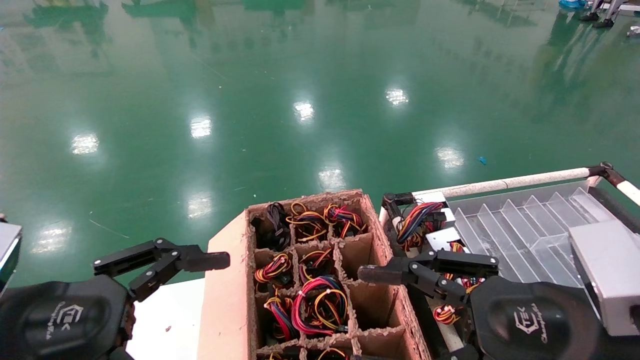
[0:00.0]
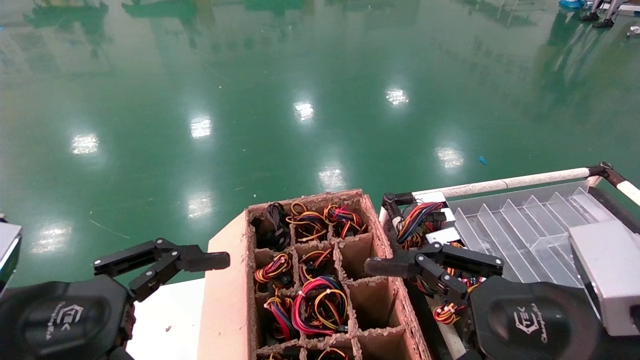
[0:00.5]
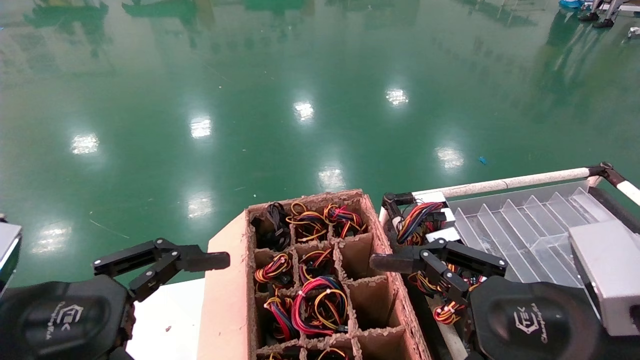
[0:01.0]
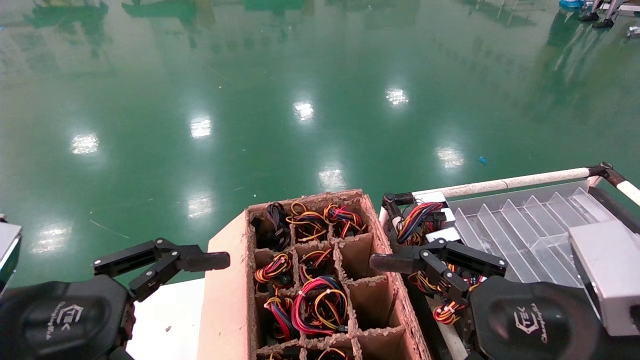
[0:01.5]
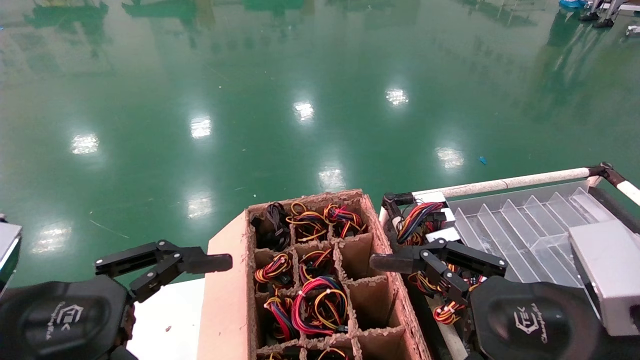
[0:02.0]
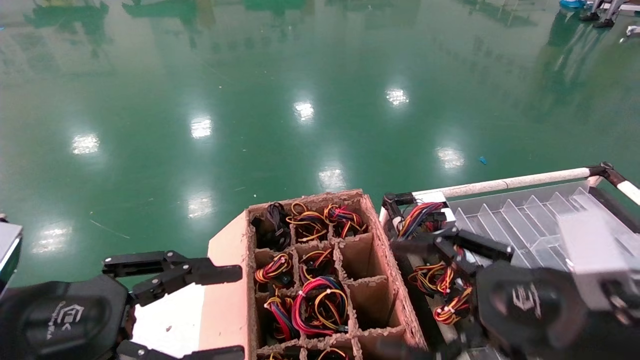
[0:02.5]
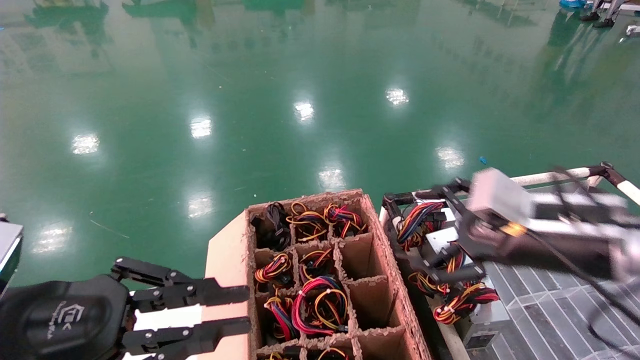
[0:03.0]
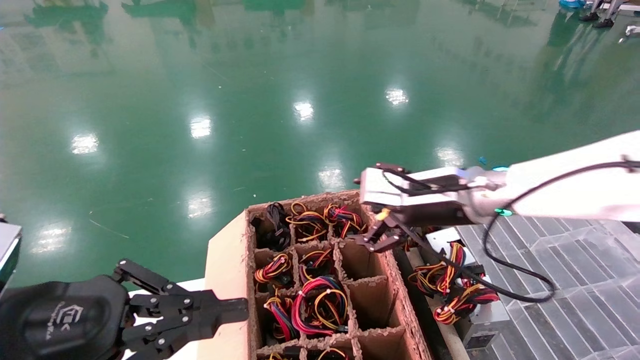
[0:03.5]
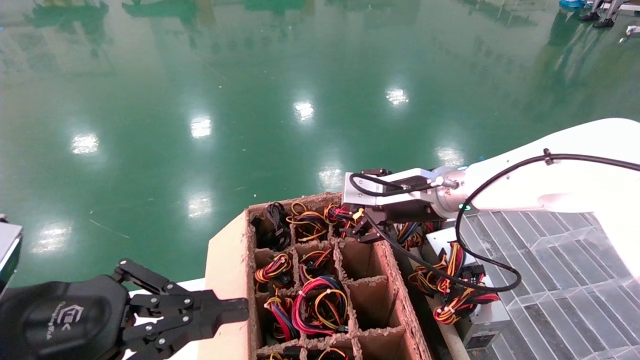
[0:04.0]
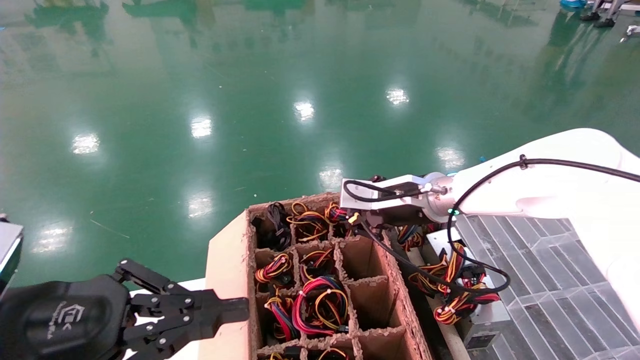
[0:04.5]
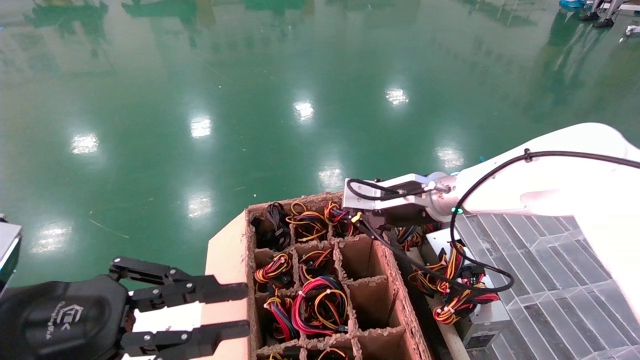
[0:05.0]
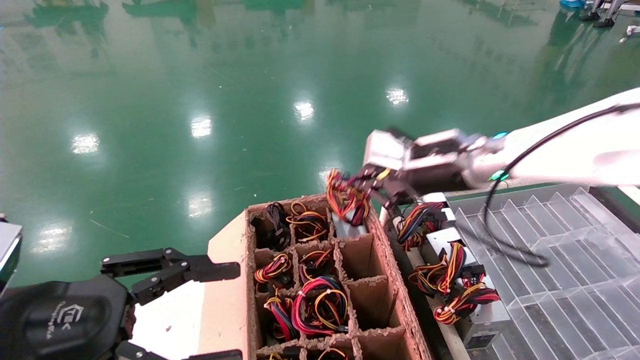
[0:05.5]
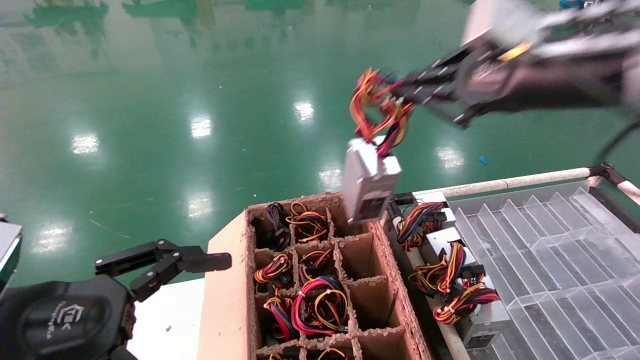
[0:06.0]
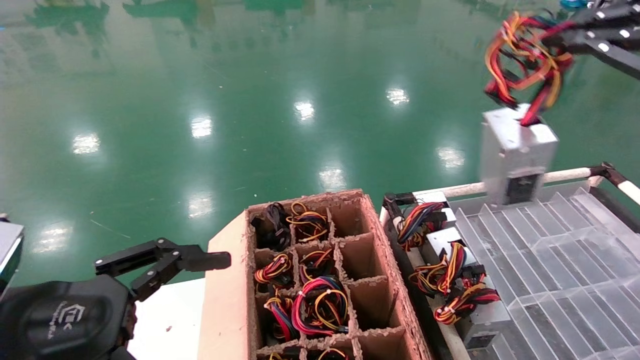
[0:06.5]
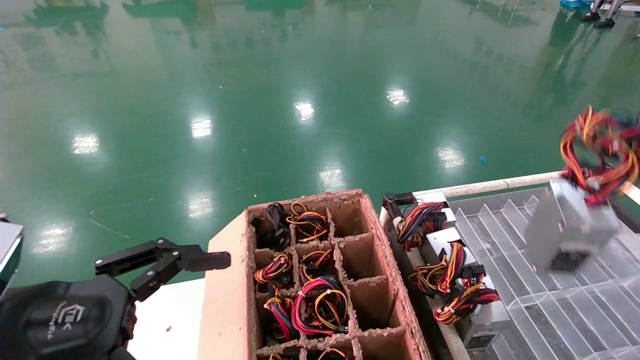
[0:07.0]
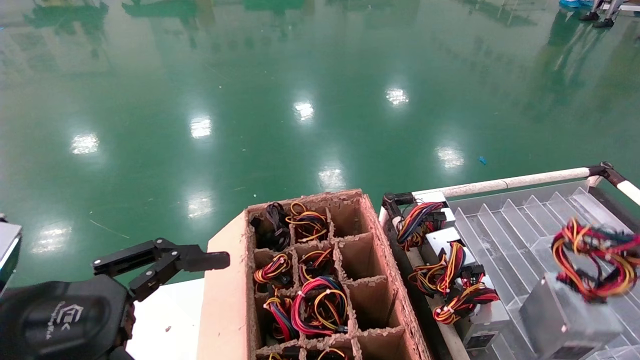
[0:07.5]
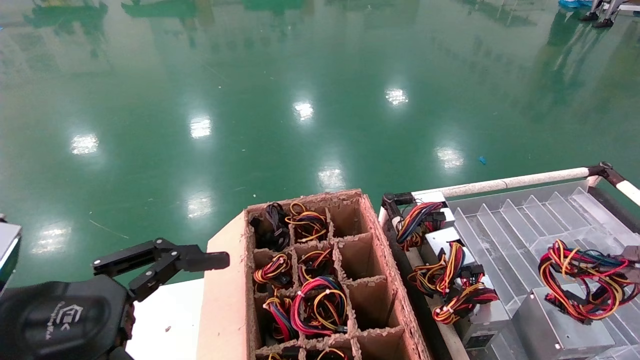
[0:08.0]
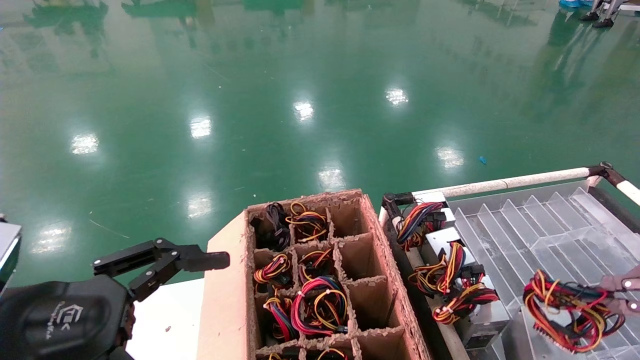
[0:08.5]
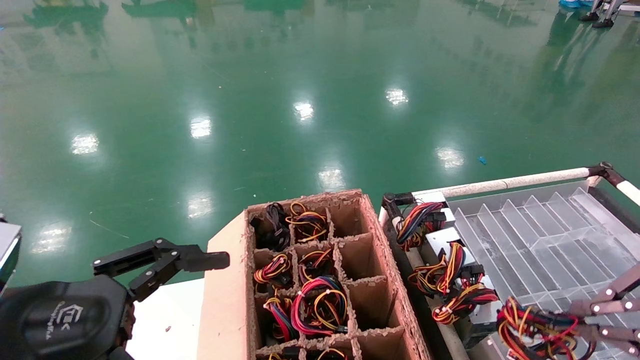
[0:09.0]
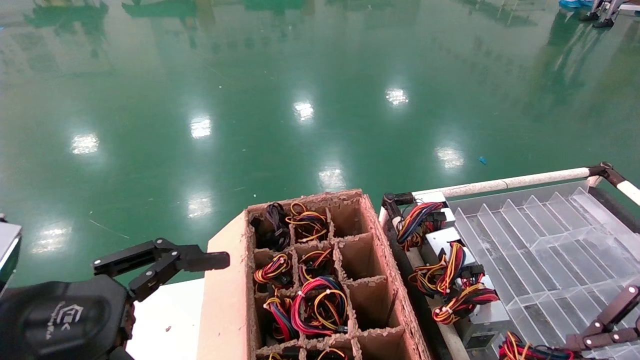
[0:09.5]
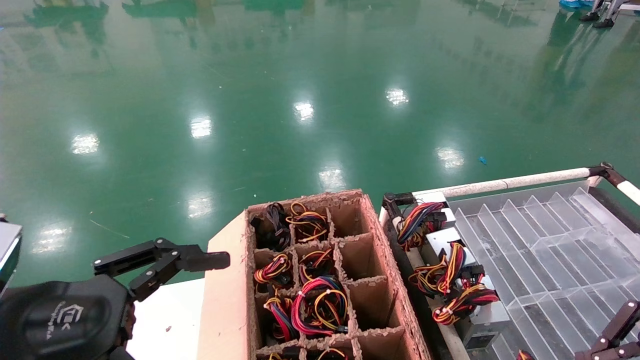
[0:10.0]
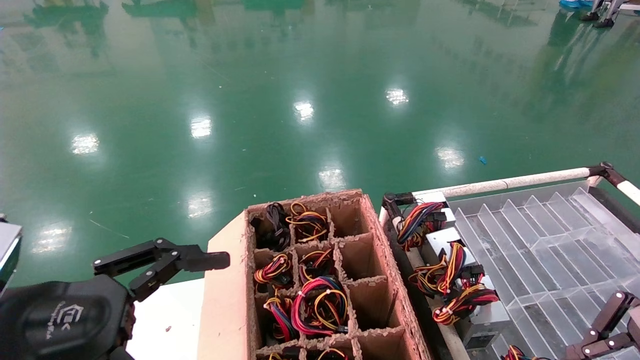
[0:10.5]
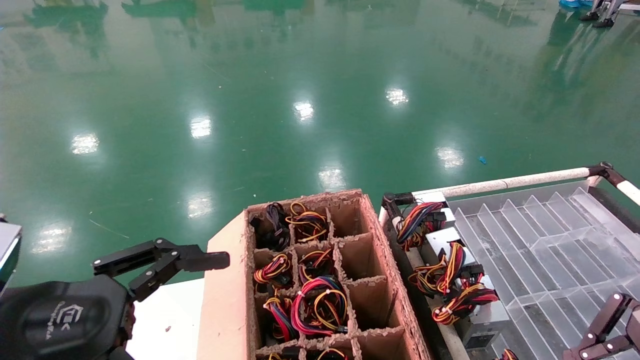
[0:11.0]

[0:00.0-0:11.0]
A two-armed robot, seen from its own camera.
Step, 0:03.0 to 0:05.0: Grab and lift the power supply from the large box.
0:00.0 to 0:02.0: The right gripper opens its fingers.
0:02.0 to 0:03.5: The right gripper moves forward, about 20 cm. The left gripper closes.
0:03.5 to 0:05.5: The left gripper opens its fingers. Meanwhile the right gripper heads upward, covering approximately 5 cm, and closes.
0:05.5 to 0:07.5: The left gripper opens. Meanwhile the right gripper moves backward and to the right, roughly 35 cm.
0:07.5 to 0:09.0: The right gripper moves to the left, approximately 5 cm.
0:09.0 to 0:11.0: The grippers stay close to where they were, moving slightly.

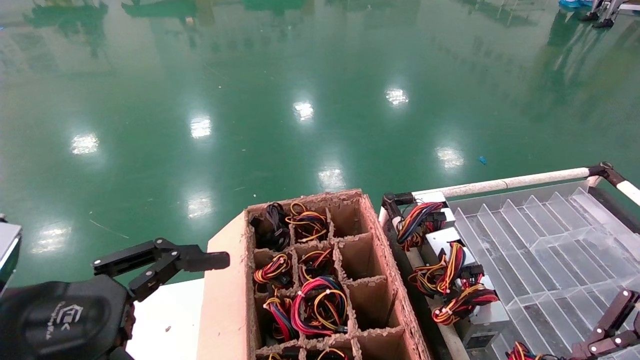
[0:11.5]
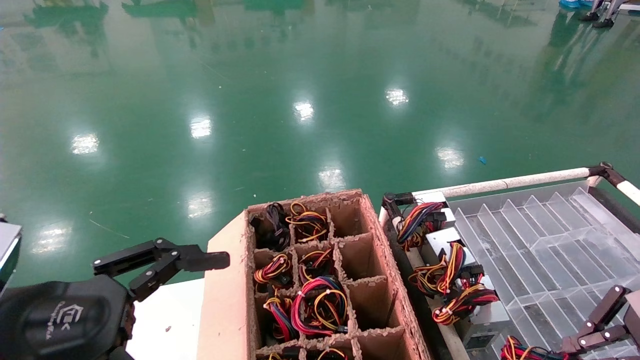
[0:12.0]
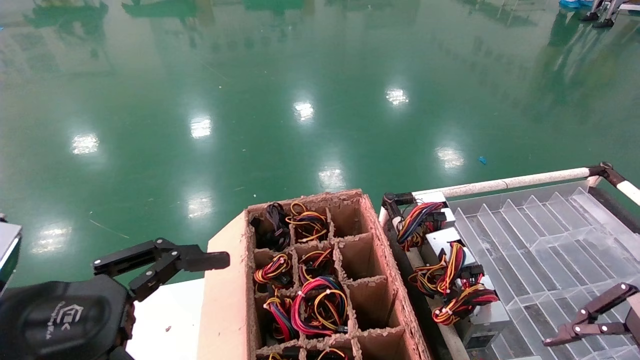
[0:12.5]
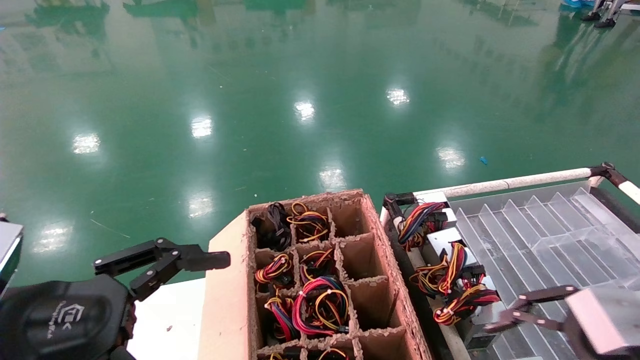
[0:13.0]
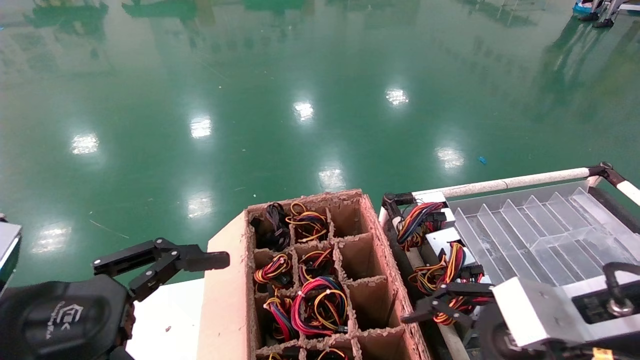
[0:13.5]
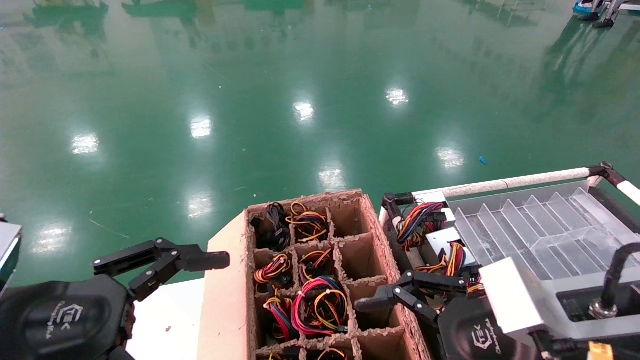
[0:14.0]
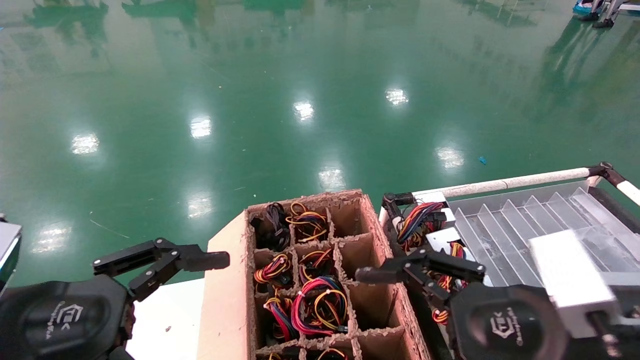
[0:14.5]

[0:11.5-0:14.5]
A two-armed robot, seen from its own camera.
0:11.5 to 0:13.0: The right gripper is displaced to the left by some 5 cm, and opens its fingers.
0:13.0 to 0:14.5: The right gripper heads to the left, covering roughly 10 cm.
